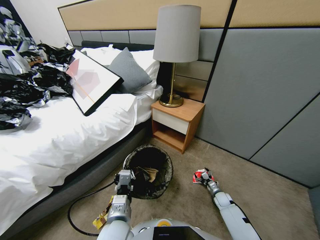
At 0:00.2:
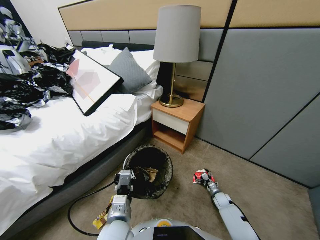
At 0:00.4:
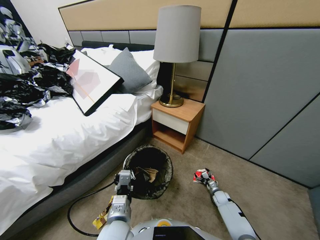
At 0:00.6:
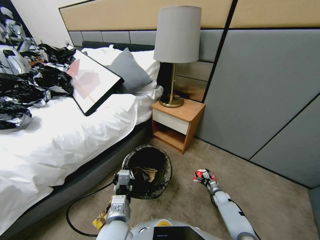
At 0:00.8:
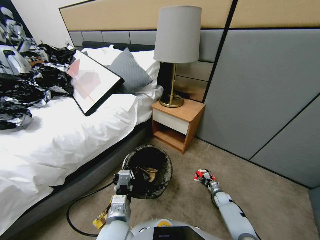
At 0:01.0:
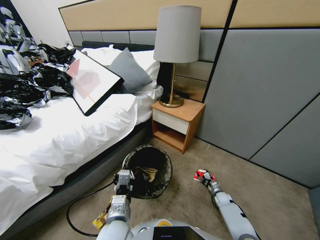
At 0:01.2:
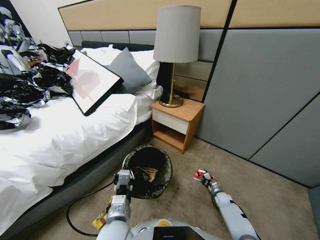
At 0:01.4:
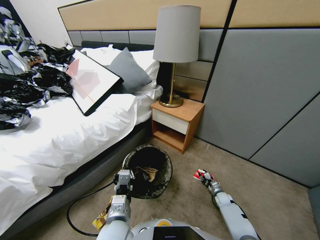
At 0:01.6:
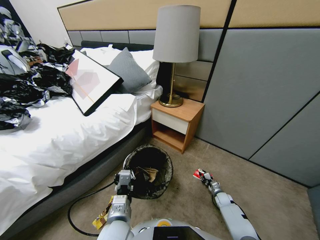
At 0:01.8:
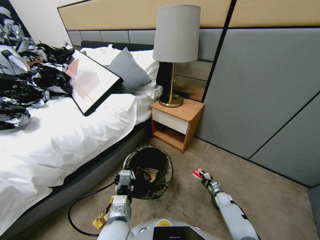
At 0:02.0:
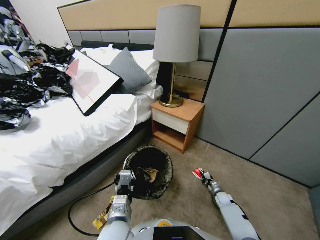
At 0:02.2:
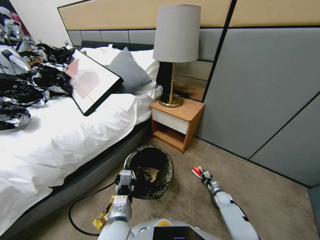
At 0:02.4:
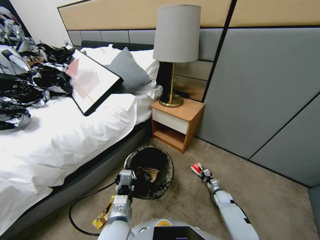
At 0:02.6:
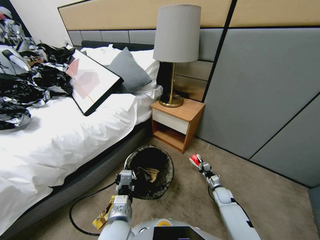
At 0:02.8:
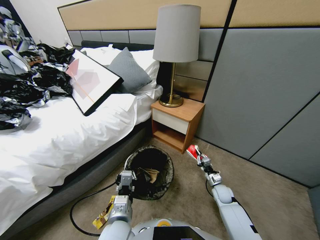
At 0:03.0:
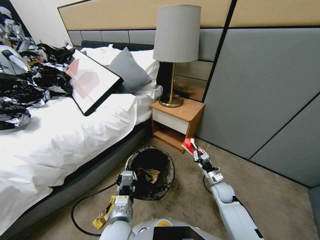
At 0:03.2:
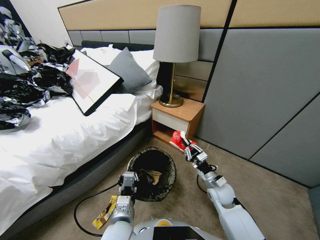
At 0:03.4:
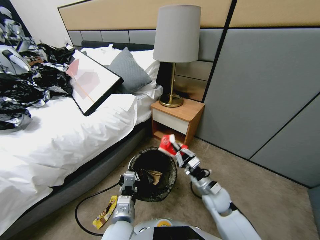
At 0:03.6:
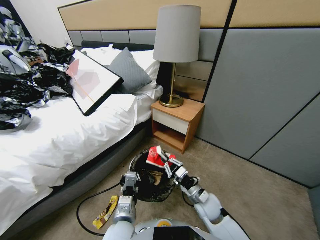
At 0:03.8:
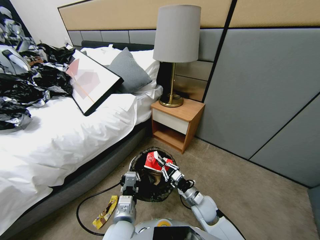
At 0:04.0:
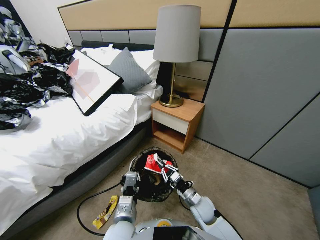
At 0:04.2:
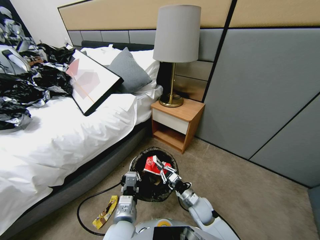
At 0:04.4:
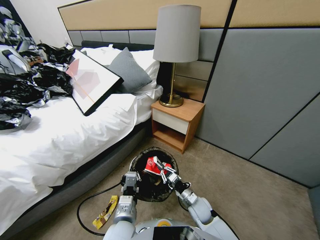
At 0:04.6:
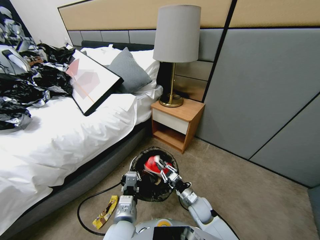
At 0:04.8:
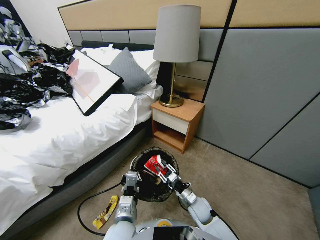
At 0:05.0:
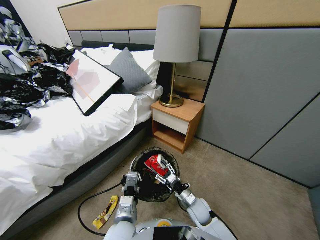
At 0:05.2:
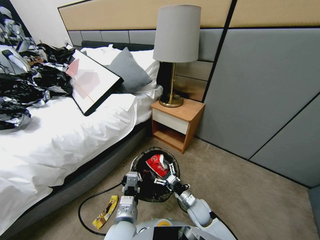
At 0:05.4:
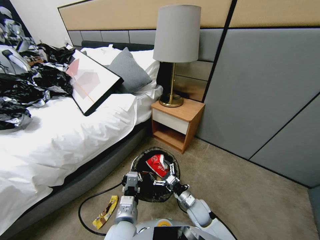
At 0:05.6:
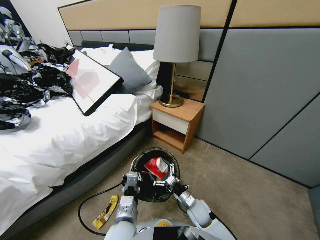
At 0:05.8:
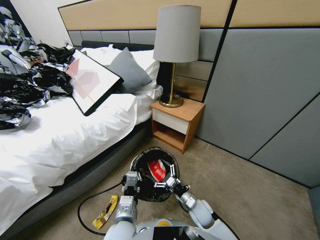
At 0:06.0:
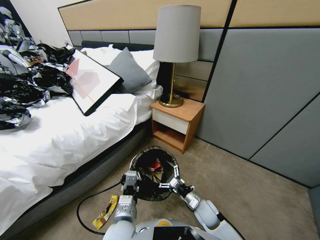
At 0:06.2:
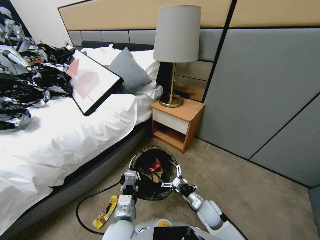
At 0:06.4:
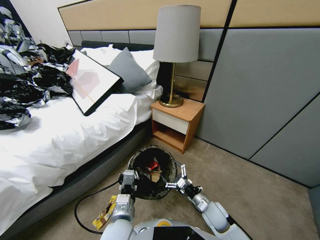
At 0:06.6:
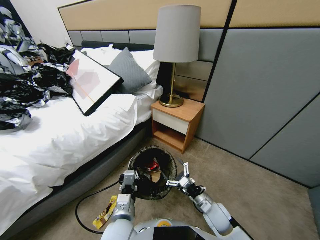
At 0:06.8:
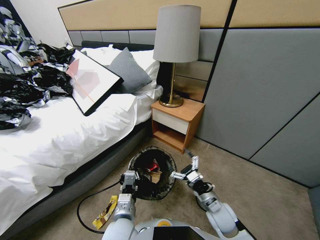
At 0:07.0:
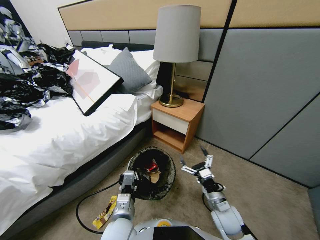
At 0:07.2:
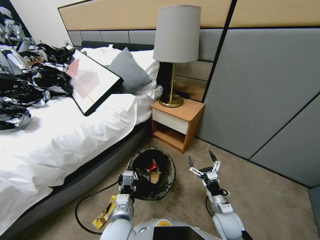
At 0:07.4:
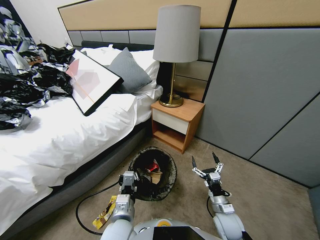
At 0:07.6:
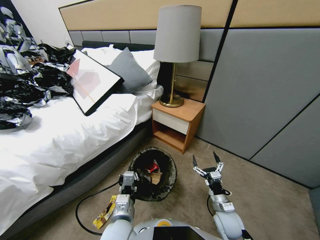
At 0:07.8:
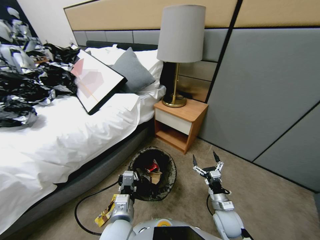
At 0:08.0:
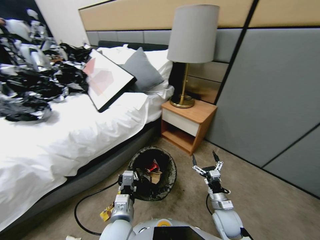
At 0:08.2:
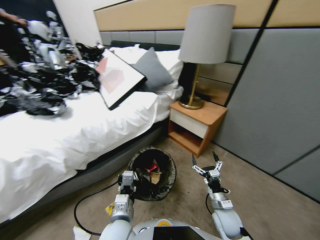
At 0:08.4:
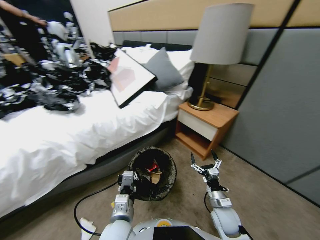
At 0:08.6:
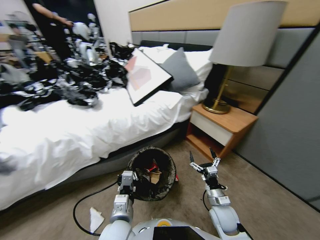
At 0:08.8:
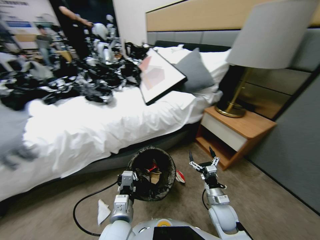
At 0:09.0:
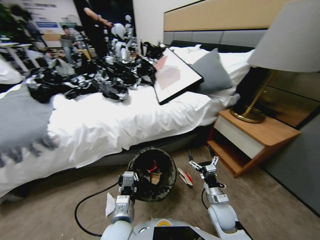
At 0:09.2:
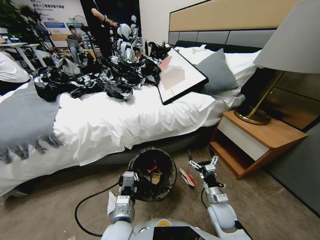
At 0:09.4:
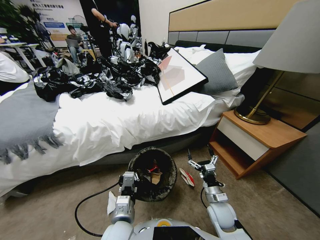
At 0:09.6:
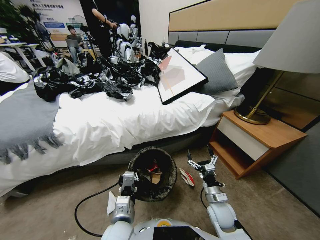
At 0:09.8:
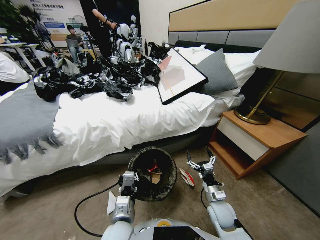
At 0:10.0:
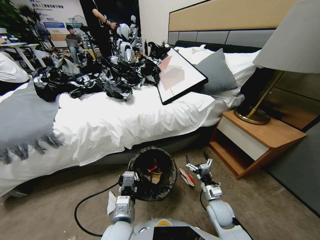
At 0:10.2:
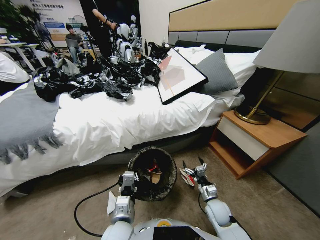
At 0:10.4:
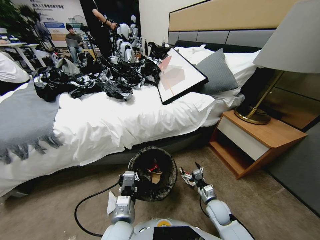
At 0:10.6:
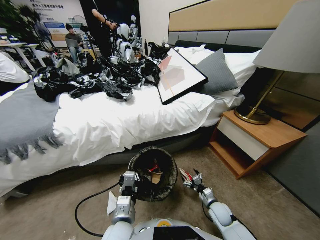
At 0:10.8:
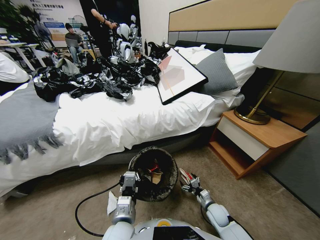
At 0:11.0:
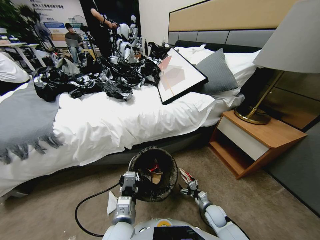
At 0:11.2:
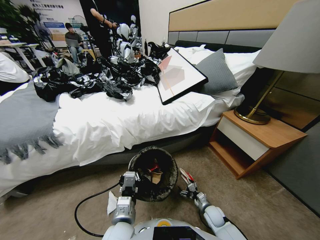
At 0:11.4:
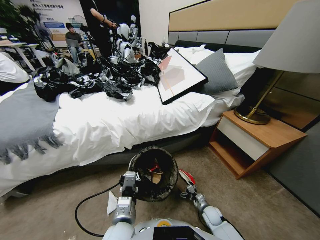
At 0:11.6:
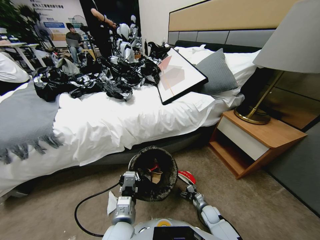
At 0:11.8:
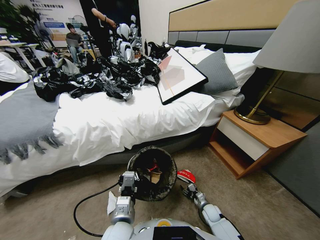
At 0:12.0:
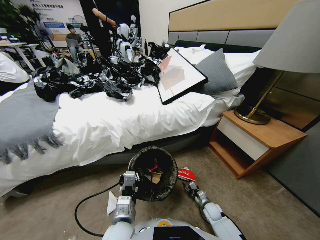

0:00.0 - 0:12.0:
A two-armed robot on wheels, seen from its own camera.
Task of the whole recording: Pick up the trash bin, then pick up the garbage from the floor and place it into the trash bin.
0:00.0 - 0:01.6: The right gripper closes up.
0:01.6 - 0:03.0: The right gripper moves upward and to the left, approximately 30 cm.
0:03.0 - 0:04.4: The right gripper moves to the left, downward and backward, about 10 cm.
0:04.4 - 0:06.0: The right gripper opens up.
0:06.0 - 0:07.6: The right gripper travels to the right by roughly 5 cm.
0:09.0 - 0:10.4: The right gripper travels downward by some 10 cm.
0:10.4 - 0:12.0: The right gripper goes roughly 10 cm downward, and closes its fingers.

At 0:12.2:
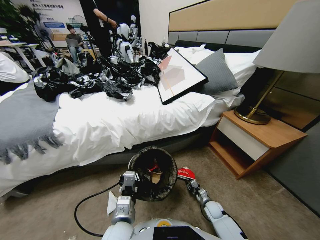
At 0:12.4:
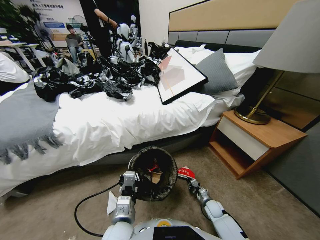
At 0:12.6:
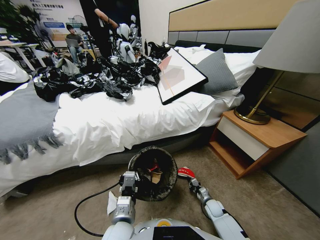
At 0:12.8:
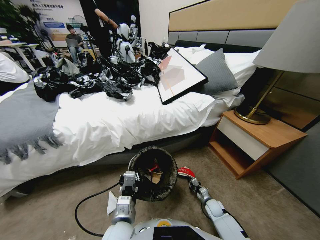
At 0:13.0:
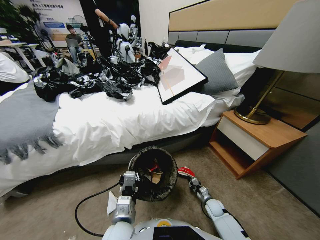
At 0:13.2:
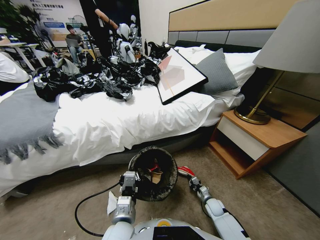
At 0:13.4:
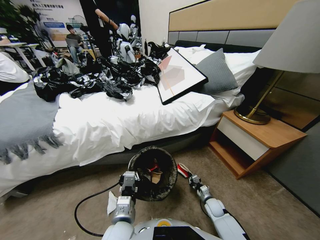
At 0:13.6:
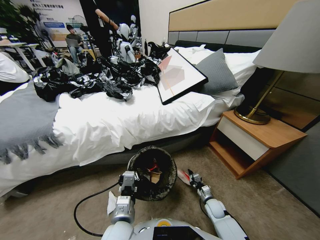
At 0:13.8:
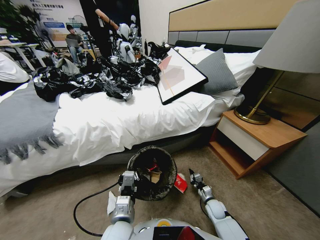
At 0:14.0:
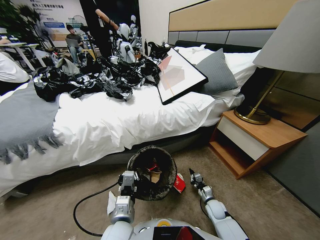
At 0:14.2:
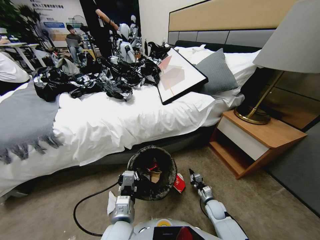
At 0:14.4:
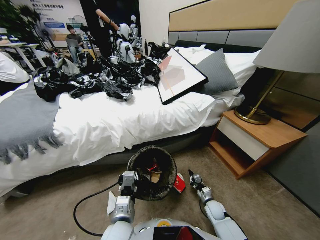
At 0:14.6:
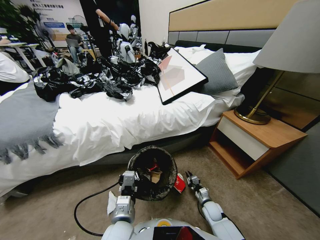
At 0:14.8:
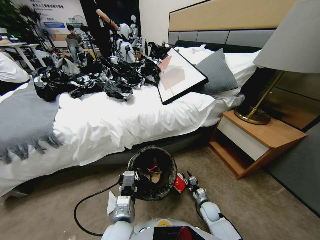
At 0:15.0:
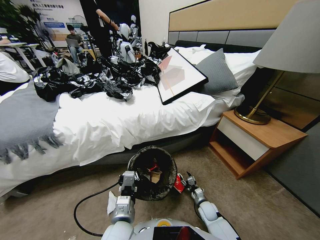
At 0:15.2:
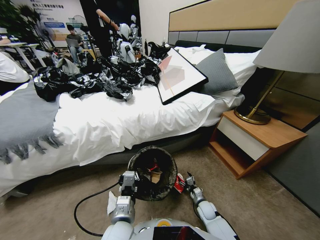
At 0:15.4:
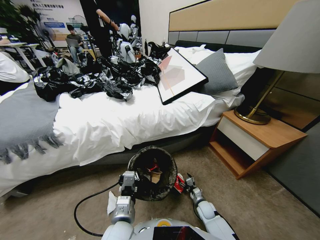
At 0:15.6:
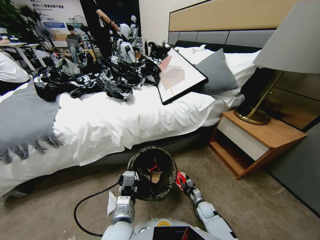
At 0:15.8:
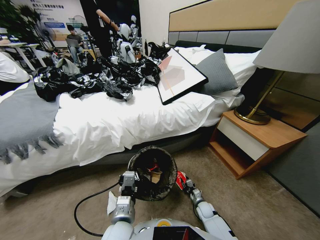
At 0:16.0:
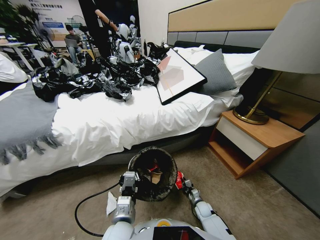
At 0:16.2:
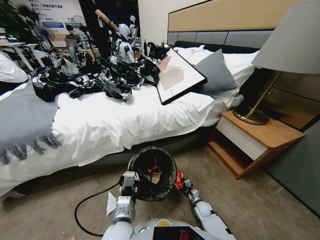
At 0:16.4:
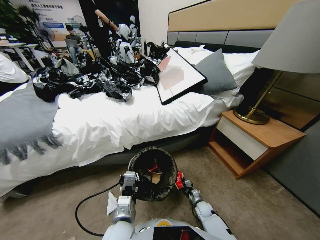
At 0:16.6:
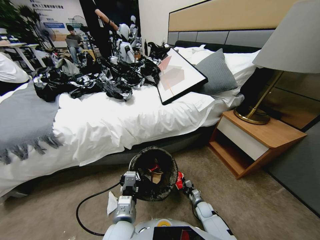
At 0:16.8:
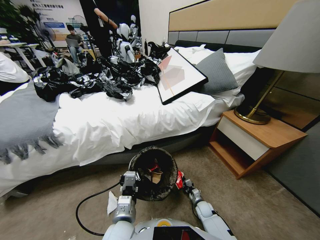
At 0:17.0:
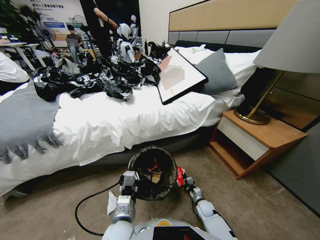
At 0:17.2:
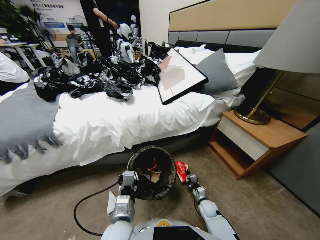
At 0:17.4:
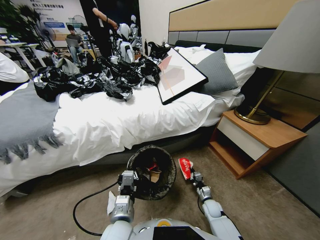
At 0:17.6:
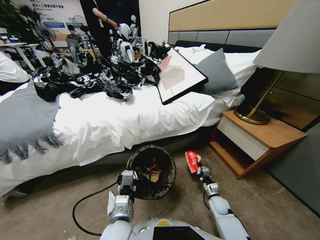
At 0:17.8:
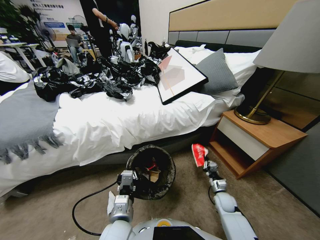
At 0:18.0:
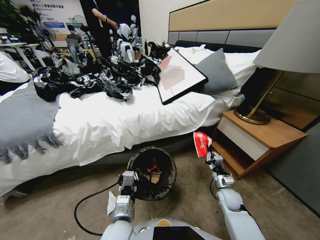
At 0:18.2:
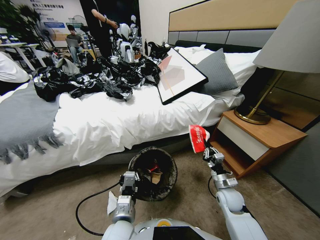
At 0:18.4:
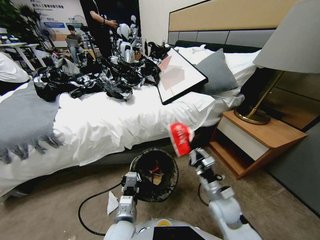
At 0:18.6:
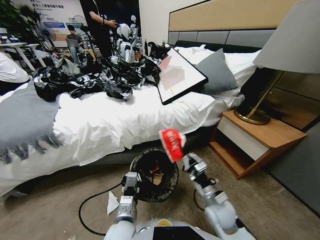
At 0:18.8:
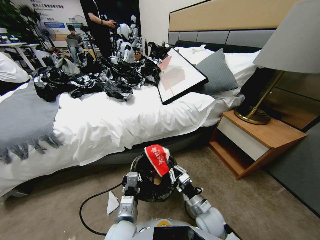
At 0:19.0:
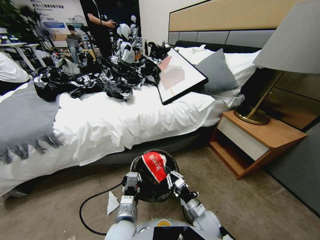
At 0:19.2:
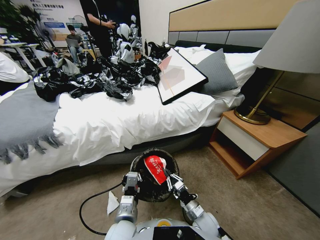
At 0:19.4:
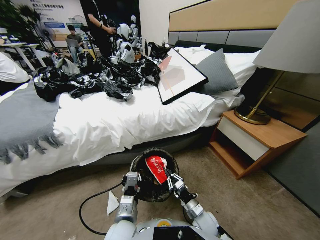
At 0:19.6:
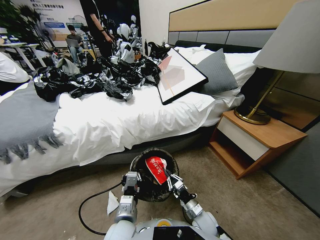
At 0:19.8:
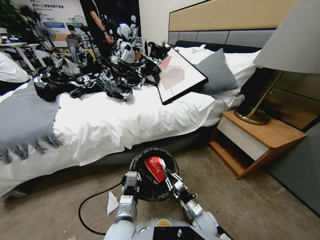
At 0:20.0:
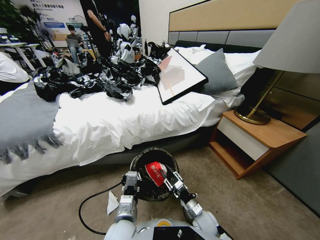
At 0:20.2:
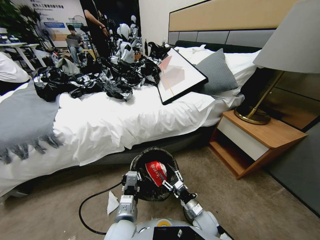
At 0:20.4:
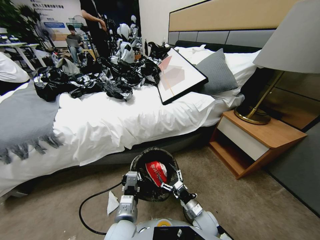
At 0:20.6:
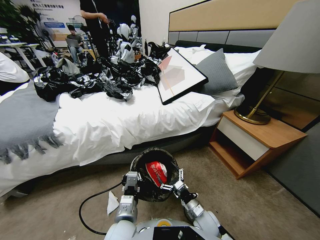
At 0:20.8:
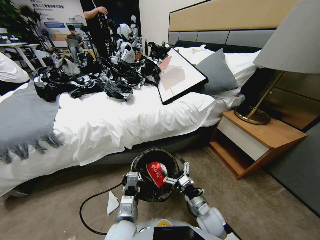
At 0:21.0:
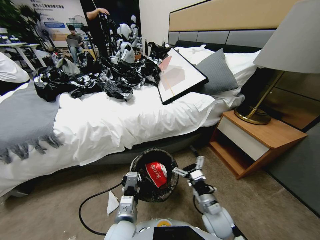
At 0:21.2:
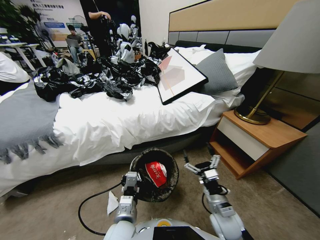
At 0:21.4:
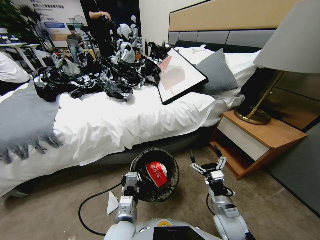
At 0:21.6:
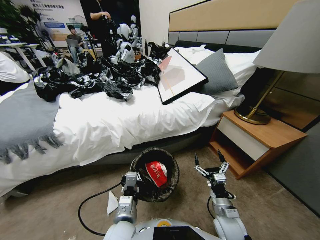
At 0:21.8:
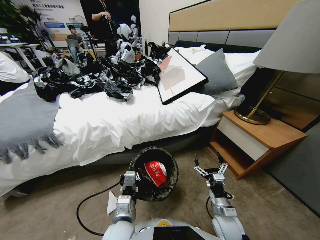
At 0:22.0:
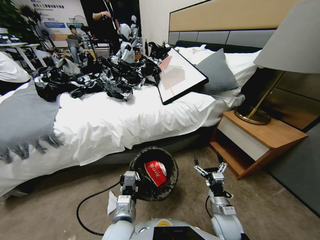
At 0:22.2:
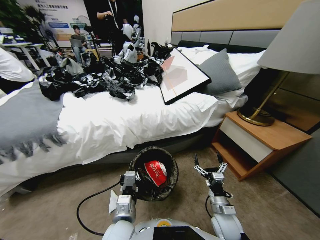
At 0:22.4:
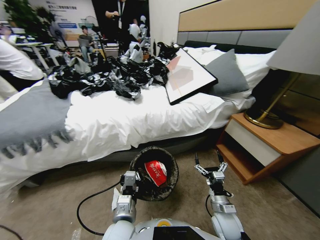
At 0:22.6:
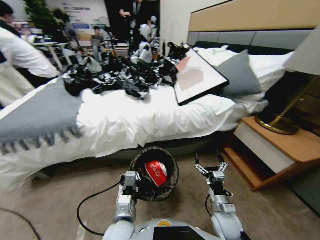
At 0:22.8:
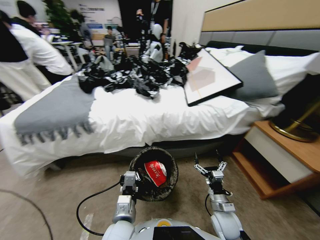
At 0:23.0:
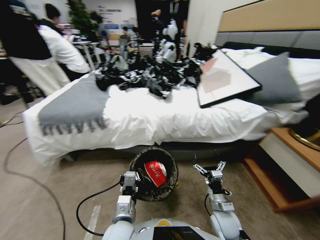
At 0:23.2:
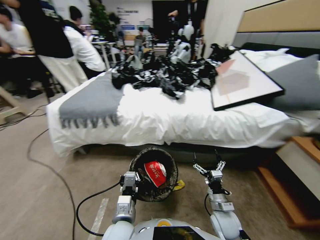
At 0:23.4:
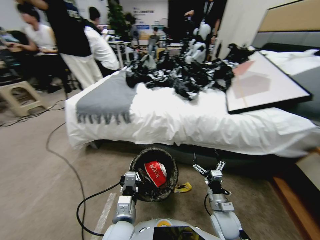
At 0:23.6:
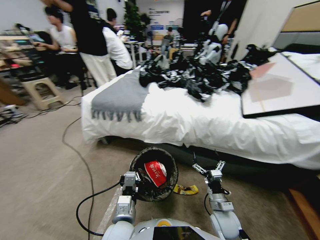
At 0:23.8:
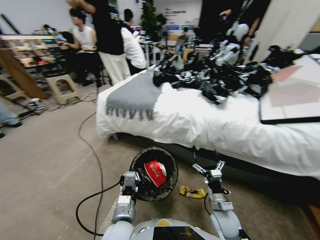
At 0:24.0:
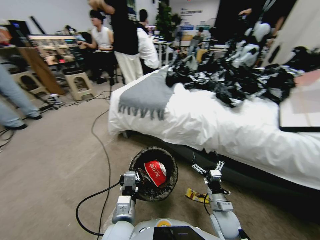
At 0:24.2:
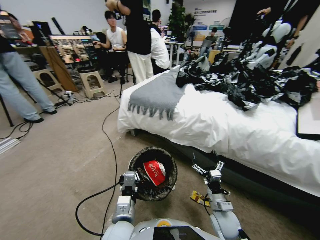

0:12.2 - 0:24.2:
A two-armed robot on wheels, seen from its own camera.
Task of the whole recording: Pick up the trash bin, then pick up the garbage from the floor and place it into the trash bin.
0:12.2 - 0:13.8: The grippers stay close to where they were, moving slightly.
0:13.8 - 0:15.2: The right gripper changes place by about 5 cm, and opens its fingers.
0:15.2 - 0:16.6: The right gripper closes its fingers.
0:16.6 - 0:18.2: The right gripper heads upward, covering about 30 cm.
0:18.2 - 0:19.8: The right gripper is displaced downward, to the left and backward by approximately 15 cm.
0:19.8 - 0:21.2: The right gripper is displaced upward and to the right by approximately 10 cm, and opens.
